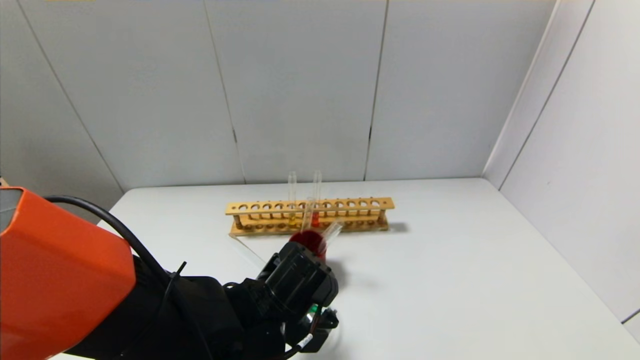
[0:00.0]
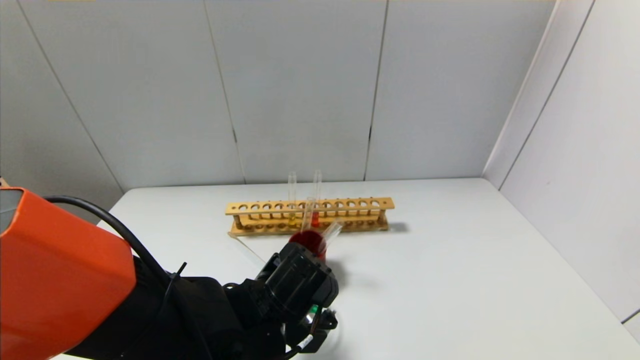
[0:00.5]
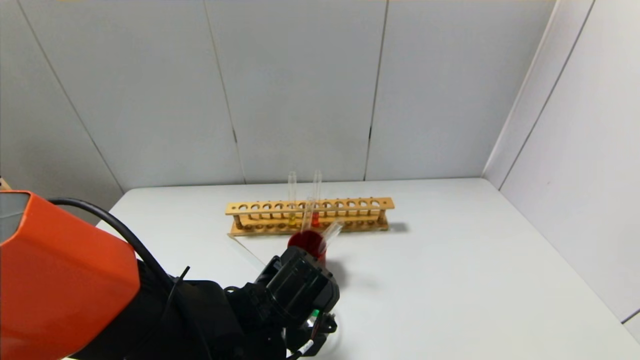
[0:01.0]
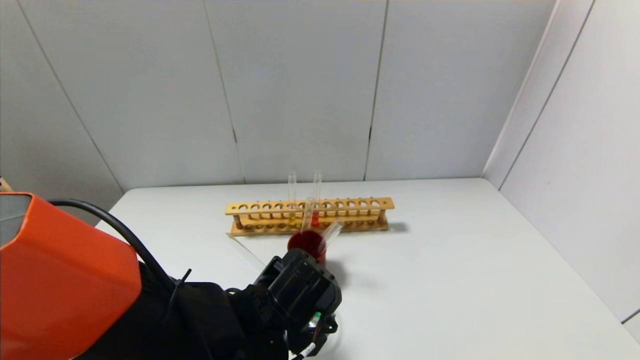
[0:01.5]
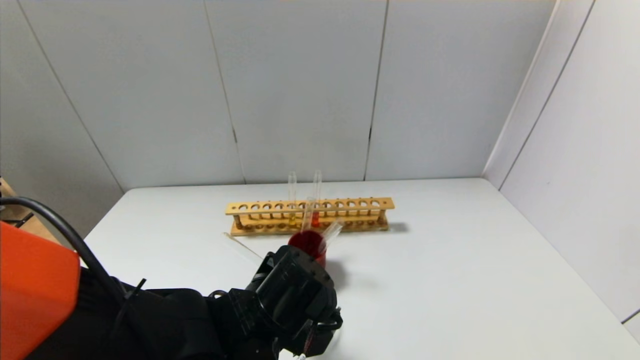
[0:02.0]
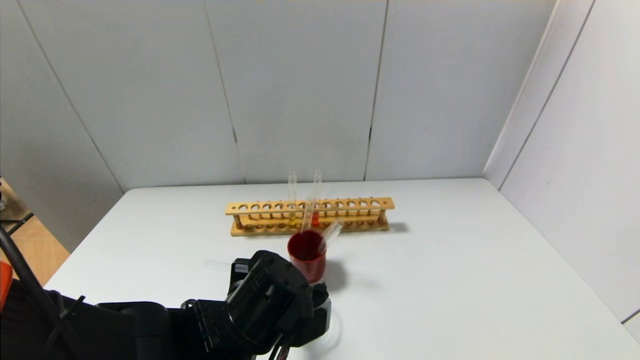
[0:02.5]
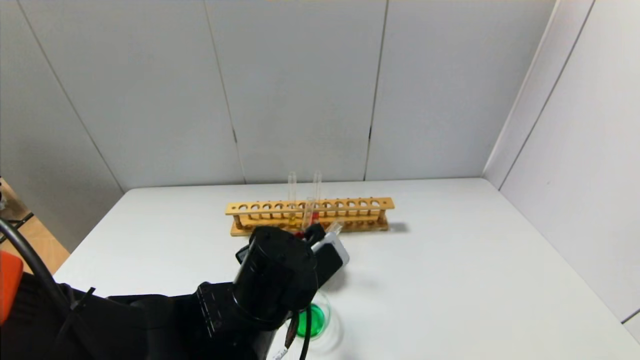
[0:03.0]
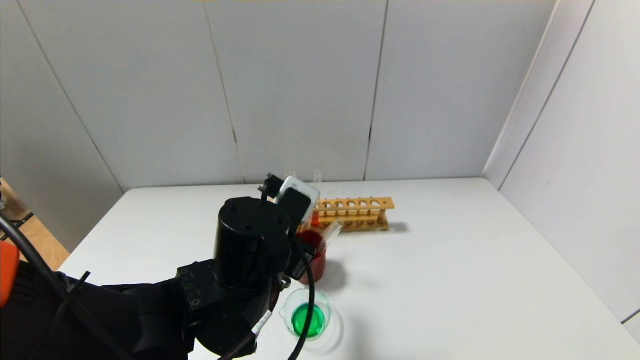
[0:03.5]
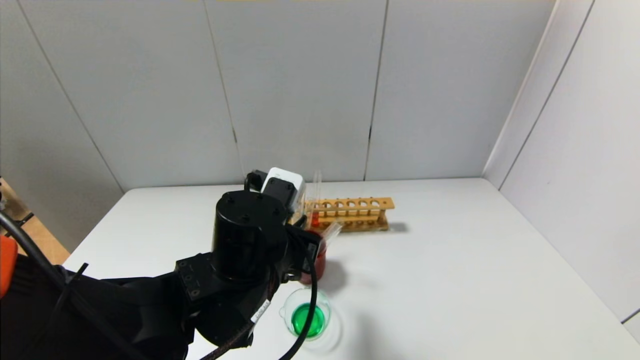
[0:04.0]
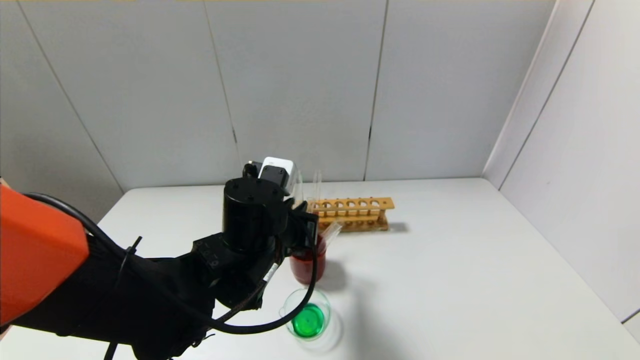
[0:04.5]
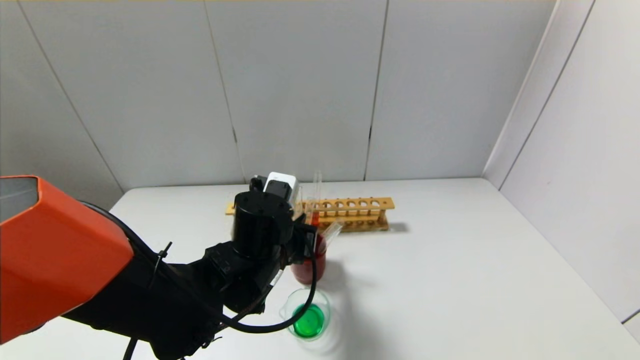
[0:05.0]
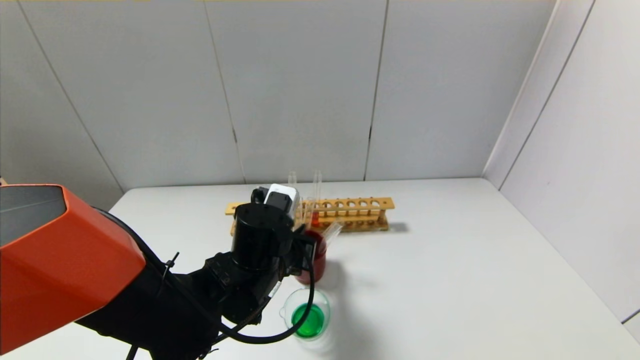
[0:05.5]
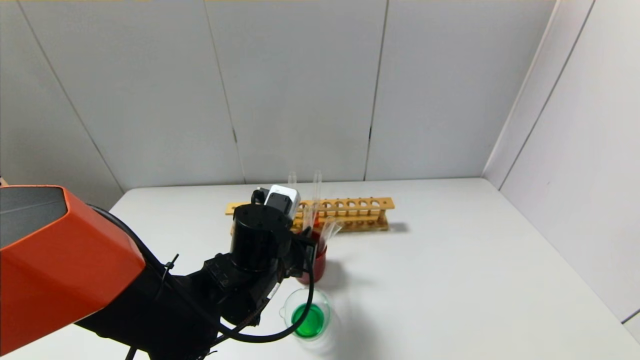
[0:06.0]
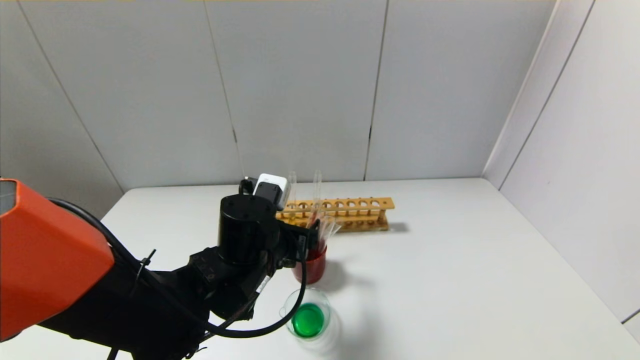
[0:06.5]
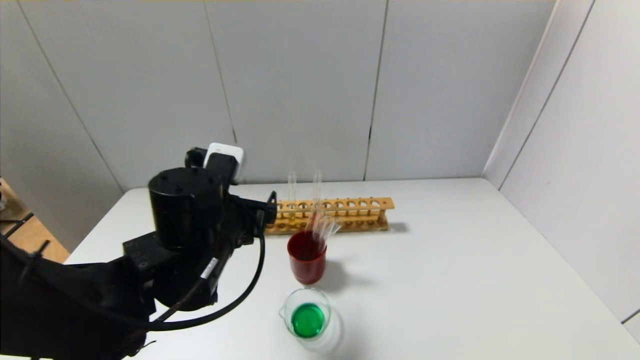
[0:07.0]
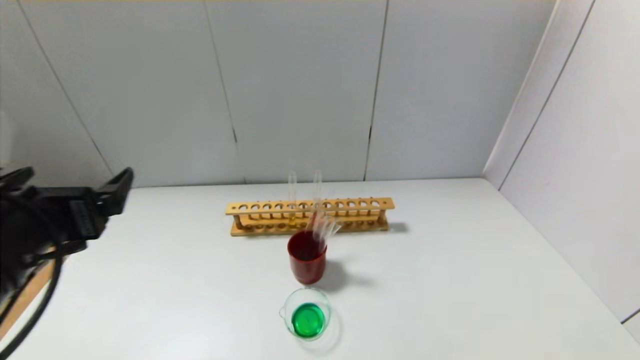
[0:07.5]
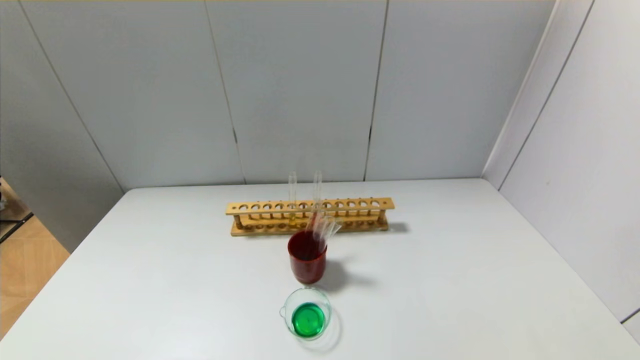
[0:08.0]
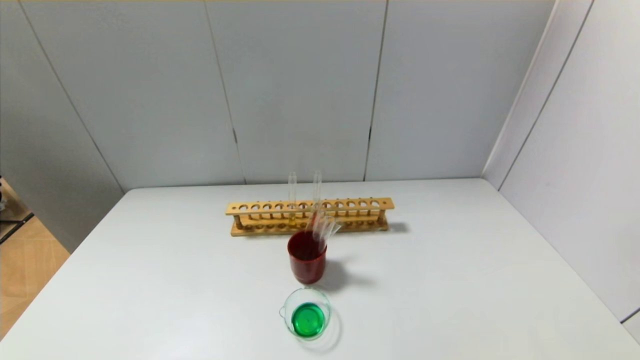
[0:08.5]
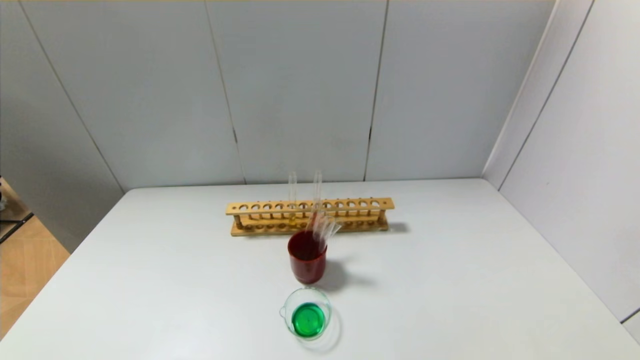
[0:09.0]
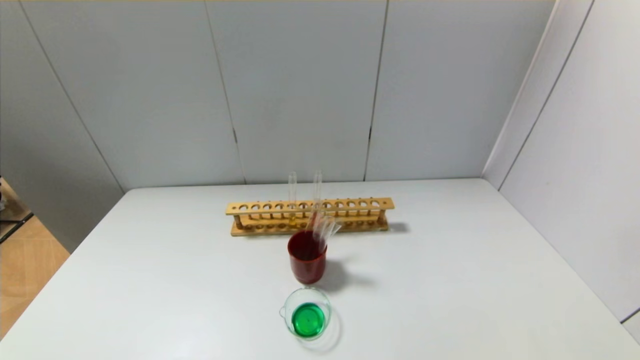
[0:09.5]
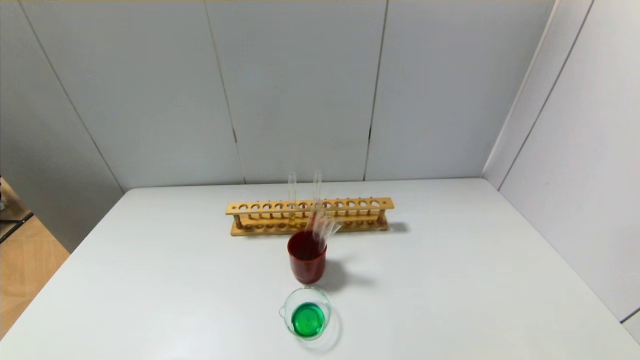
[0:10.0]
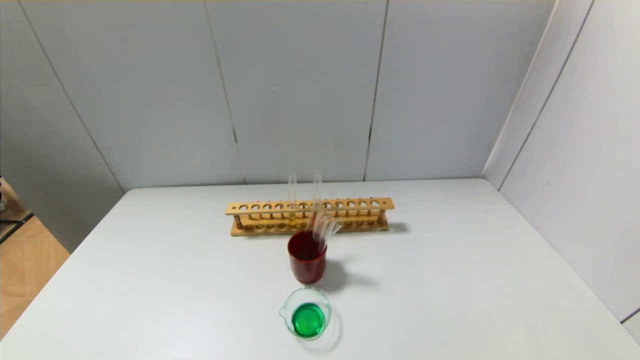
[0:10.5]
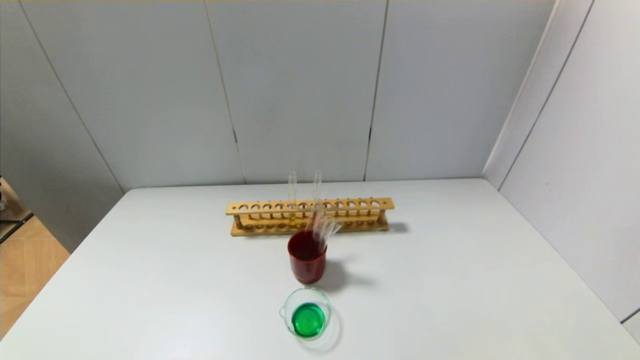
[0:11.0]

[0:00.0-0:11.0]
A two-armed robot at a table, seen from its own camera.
Step, 0:00.0 to 0:02.0: Pour the blue reagent into the graduated cylinder with the left gripper.
Step, 0:02.5 to 0:06.5: Place the test tube into the brown cup with the left gripper.
0:00.0 to 0:02.0: The grippers stay close to where they were, moving slightly.
0:02.0 to 0:03.5: The left gripper heads upward, covering about 5 cm.
0:03.5 to 0:05.5: The left gripper shifts by some 5 cm.
0:05.5 to 0:07.5: The left gripper travels to the left, upward and backward by approximately 25 cm, and opens its fingers.
0:07.5 to 0:09.0: The left gripper moves backward and downward, about 20 cm.
